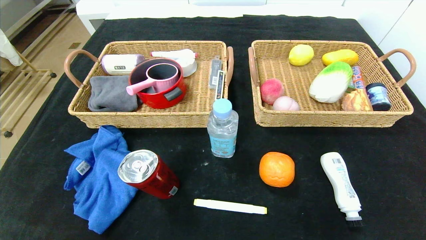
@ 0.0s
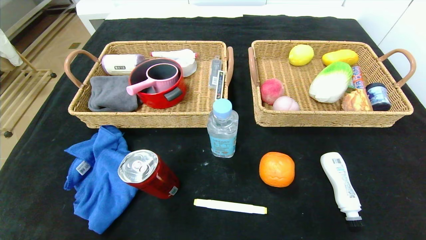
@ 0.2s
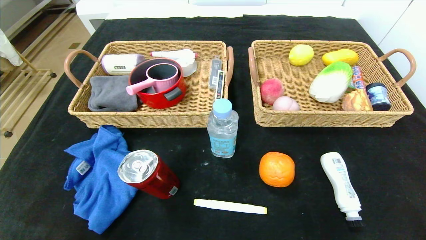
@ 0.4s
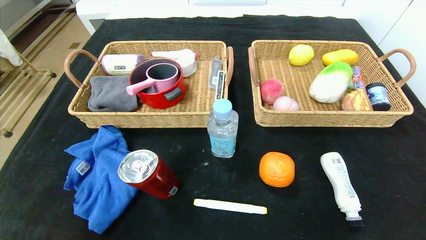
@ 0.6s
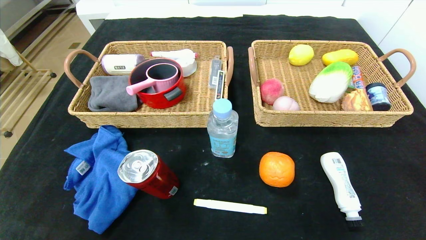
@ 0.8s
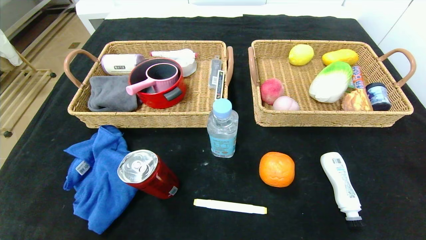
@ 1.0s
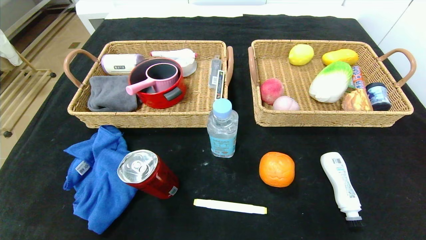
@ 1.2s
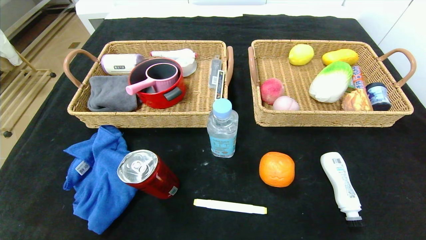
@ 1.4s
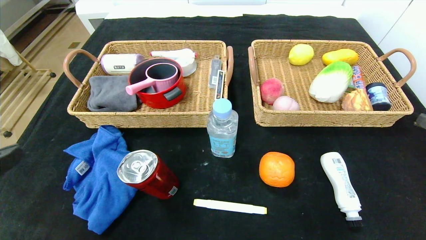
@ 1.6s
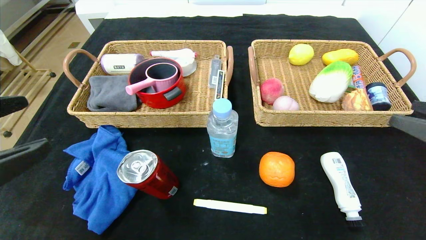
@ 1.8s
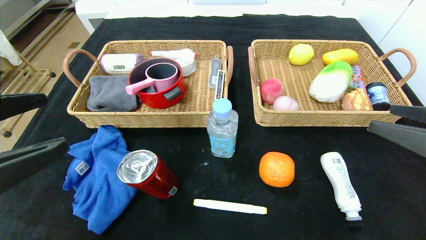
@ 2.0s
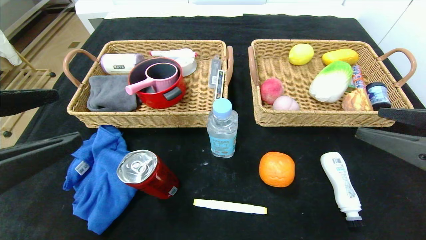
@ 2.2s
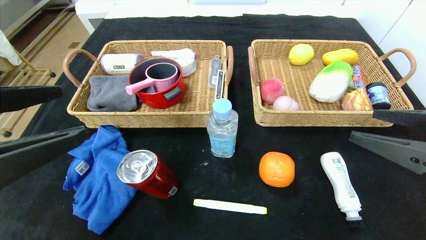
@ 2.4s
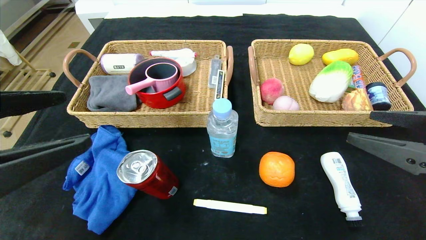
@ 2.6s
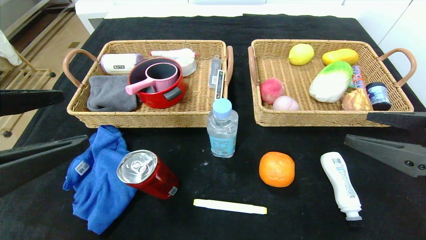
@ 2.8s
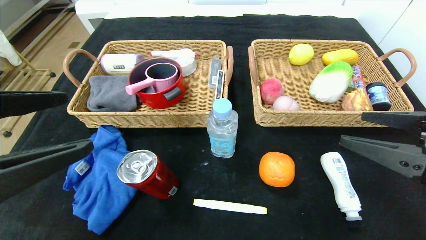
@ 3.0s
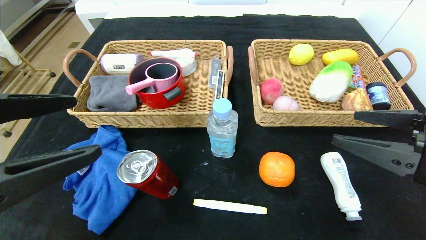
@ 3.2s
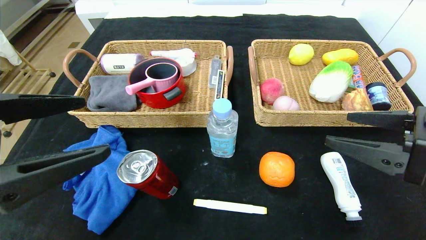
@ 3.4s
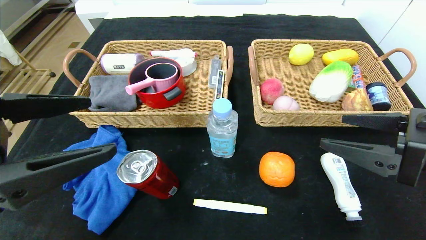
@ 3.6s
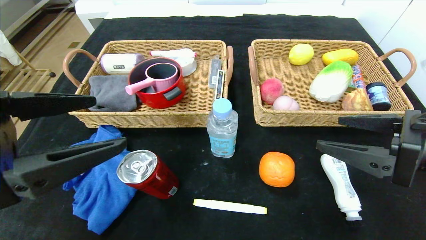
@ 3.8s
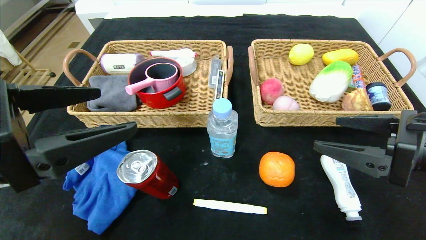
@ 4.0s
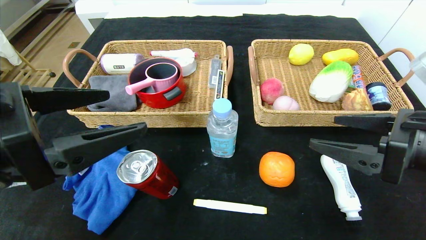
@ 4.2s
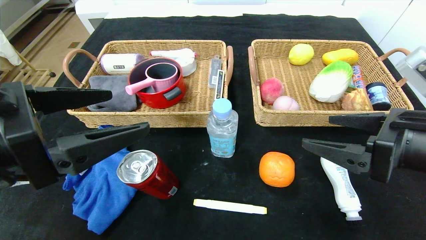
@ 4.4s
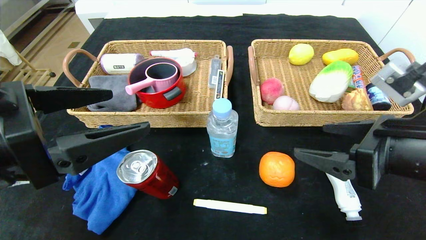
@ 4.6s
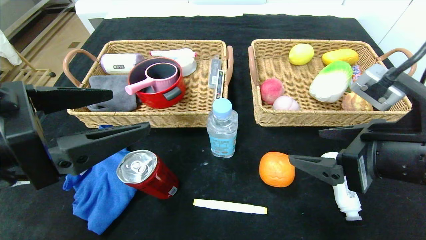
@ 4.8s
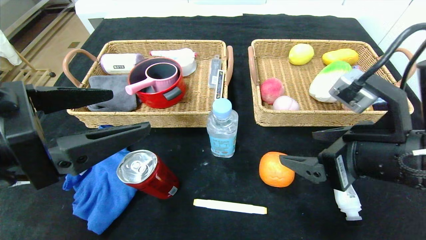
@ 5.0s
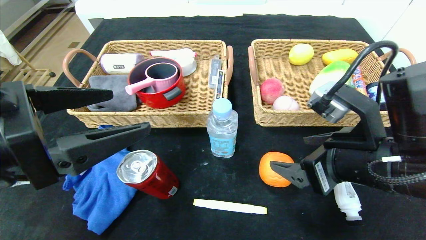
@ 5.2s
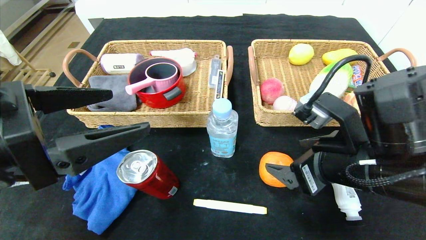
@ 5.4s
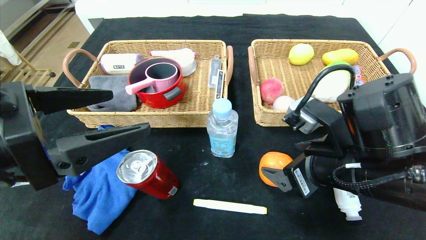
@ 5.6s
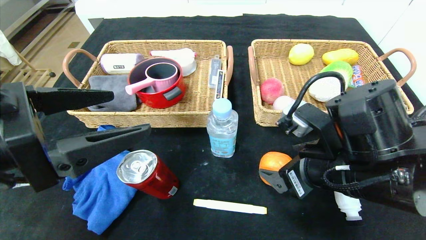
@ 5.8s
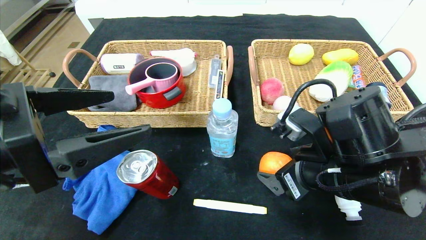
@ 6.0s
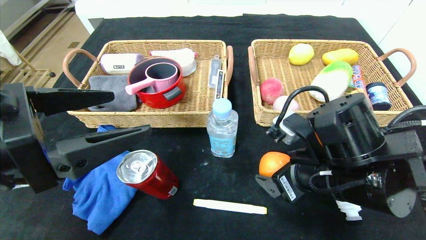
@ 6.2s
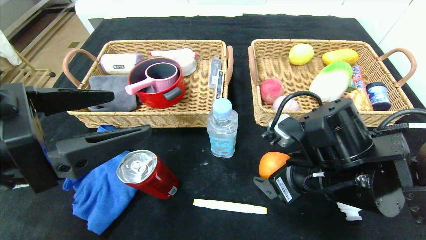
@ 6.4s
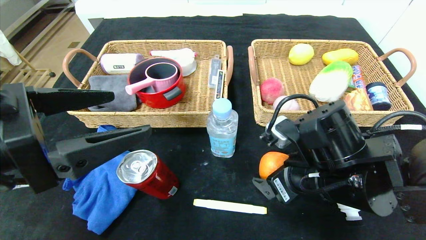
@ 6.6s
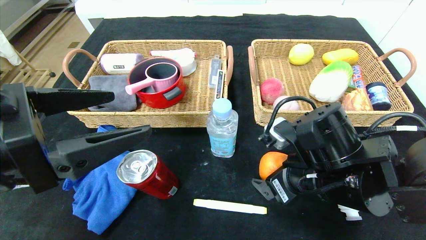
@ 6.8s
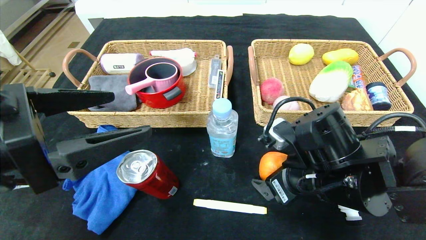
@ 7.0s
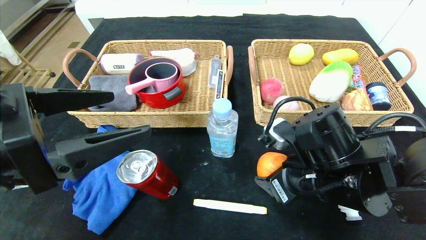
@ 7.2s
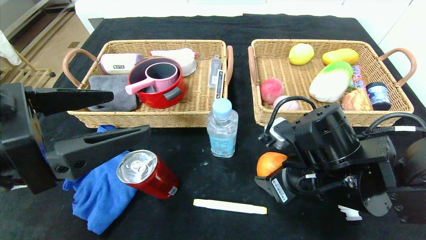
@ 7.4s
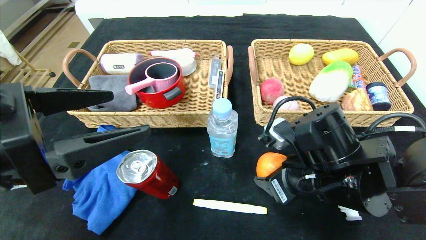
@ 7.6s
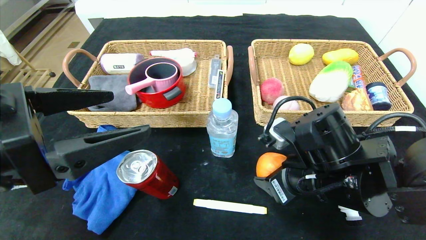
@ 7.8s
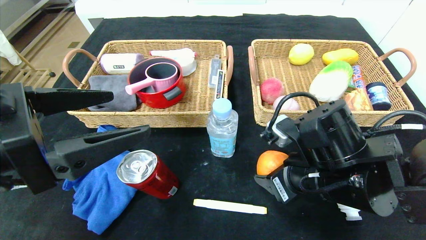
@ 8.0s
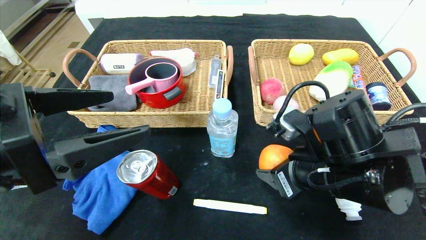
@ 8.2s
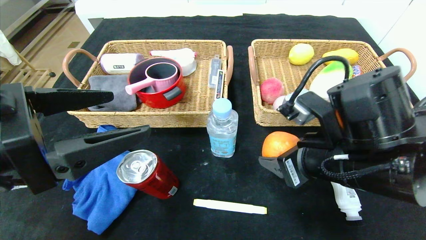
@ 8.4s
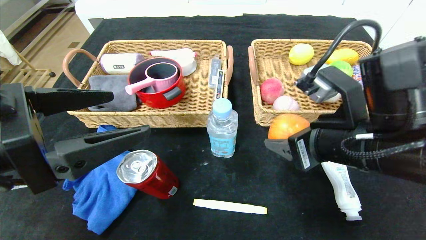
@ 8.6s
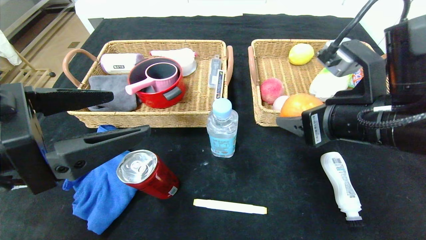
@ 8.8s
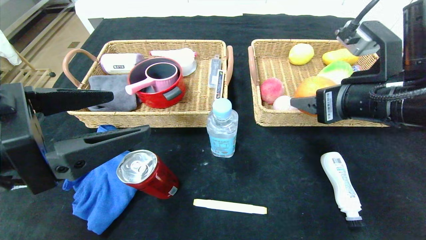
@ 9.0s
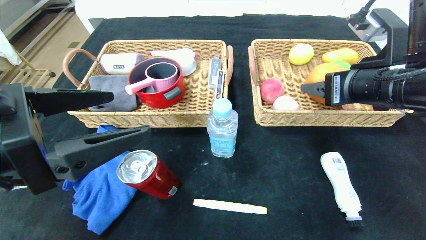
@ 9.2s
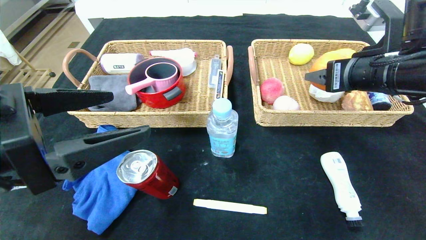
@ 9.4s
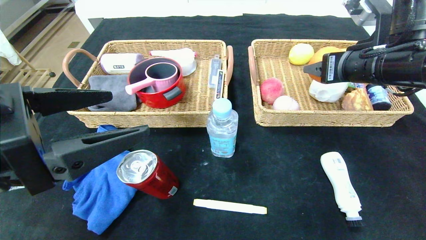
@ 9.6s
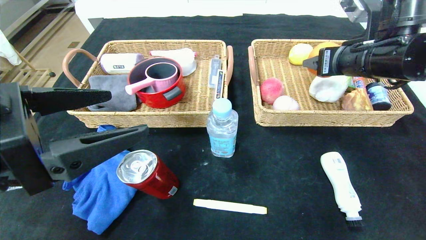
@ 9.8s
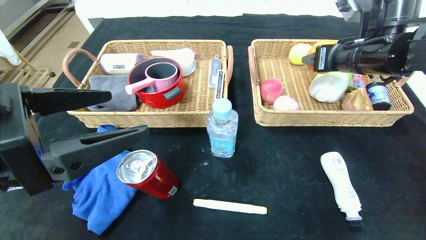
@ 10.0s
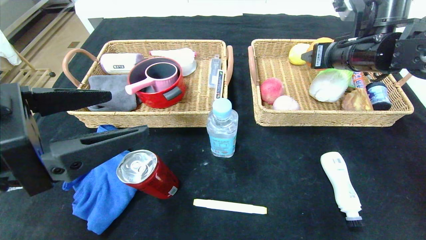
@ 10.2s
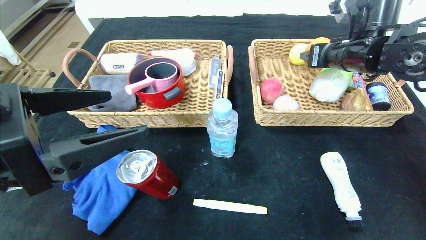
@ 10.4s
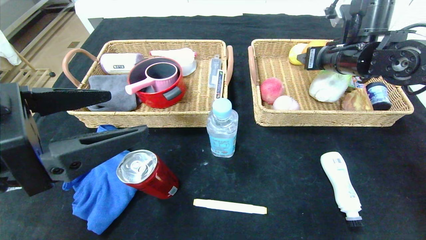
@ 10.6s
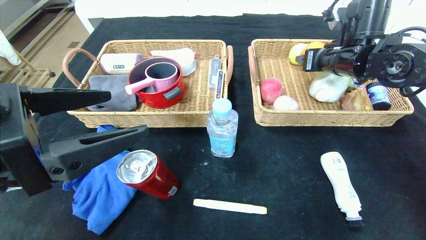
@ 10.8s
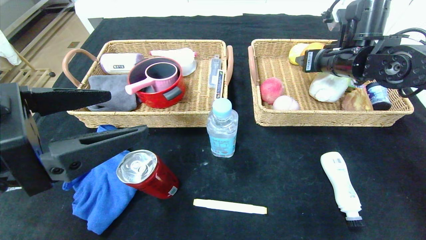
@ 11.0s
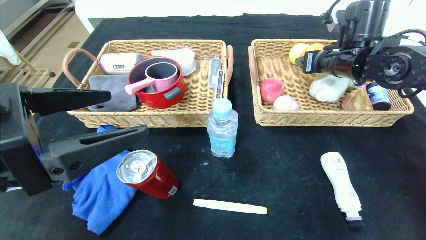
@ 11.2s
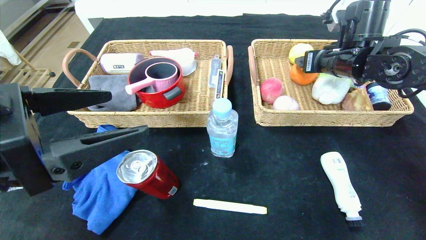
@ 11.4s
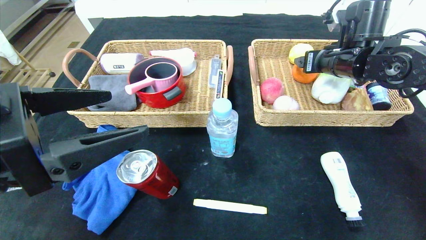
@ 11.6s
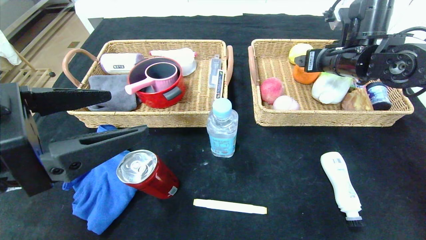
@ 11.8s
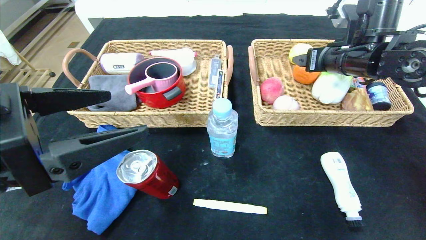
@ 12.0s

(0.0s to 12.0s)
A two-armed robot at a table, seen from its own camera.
Step, 0.0s - 11.6s: Grasp the orange and put it in the right basket.
0.0s - 1.6s: The left gripper travels forward and upward by approximately 10 cm. The right gripper moves forward, about 10 cm.
1.6s - 3.0s: The right gripper ends up roughly 5 cm from where it was.
3.0s - 4.4s: The grippers make only small movements.
4.4s - 6.0s: The right gripper heads to the left and downward, covering approximately 10 cm.
6.0s - 7.6s: The right gripper closes its fingers.
7.6s - 9.0s: The right gripper moves upward and to the right, roughly 15 cm.
9.0s - 10.4s: The right gripper heads forward, covering approximately 15 cm.
10.4s - 12.0s: The grippers stay close to where they were, moving slightly.

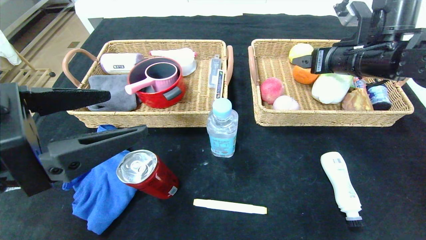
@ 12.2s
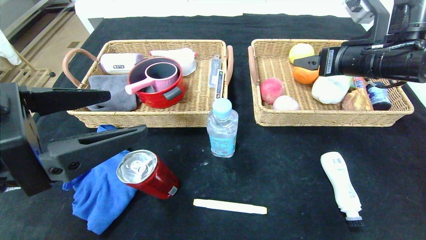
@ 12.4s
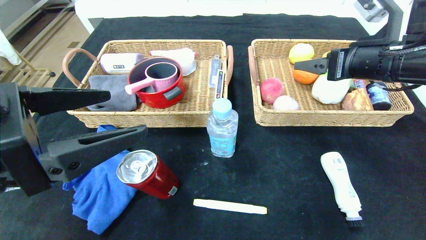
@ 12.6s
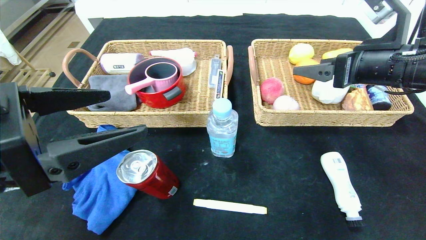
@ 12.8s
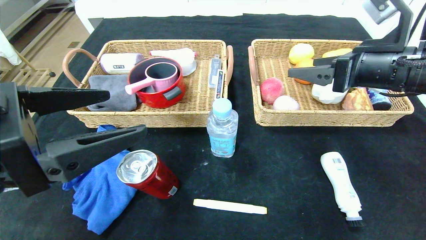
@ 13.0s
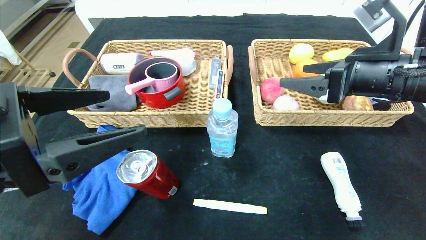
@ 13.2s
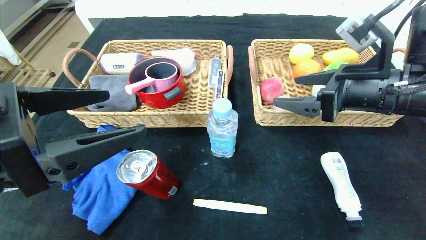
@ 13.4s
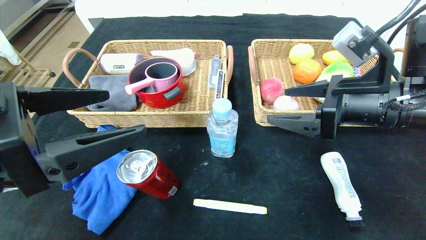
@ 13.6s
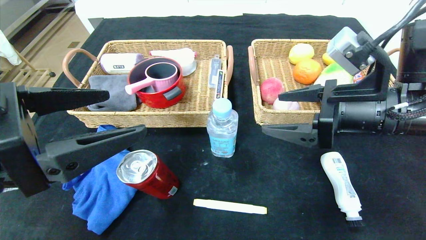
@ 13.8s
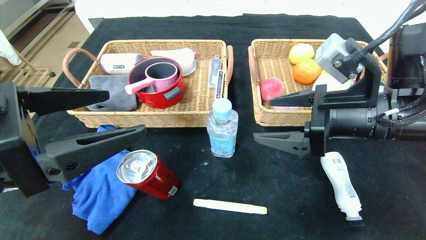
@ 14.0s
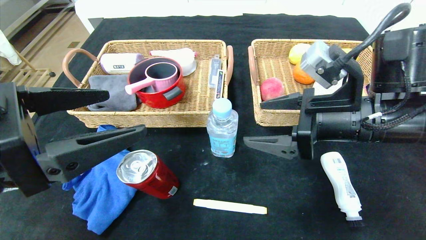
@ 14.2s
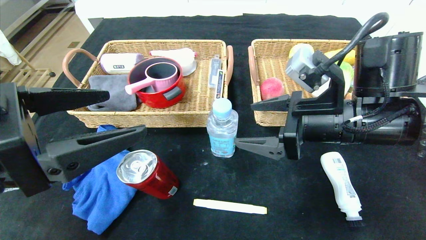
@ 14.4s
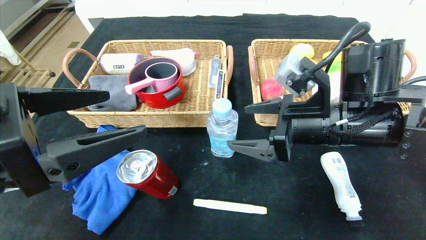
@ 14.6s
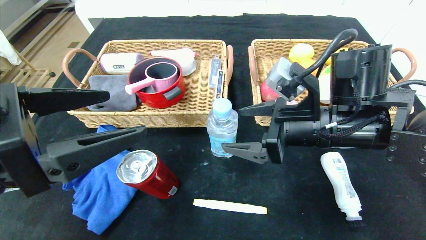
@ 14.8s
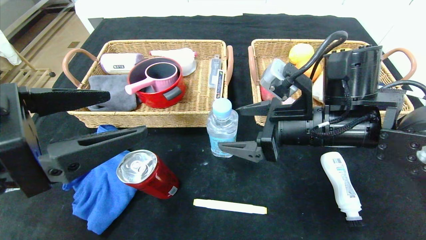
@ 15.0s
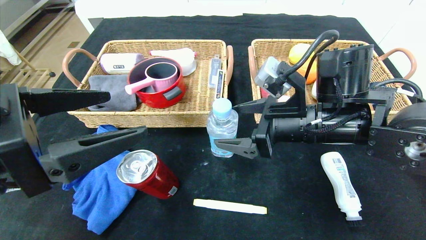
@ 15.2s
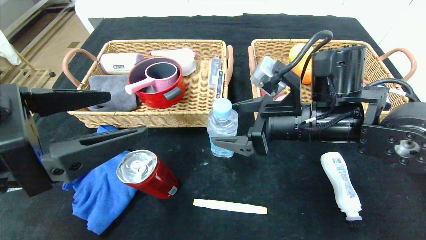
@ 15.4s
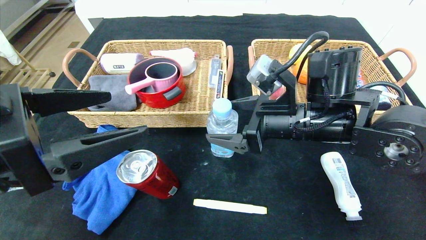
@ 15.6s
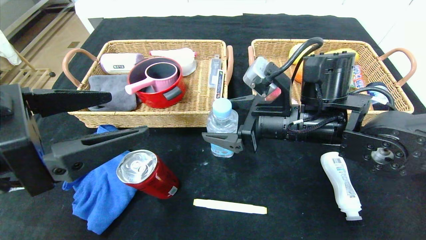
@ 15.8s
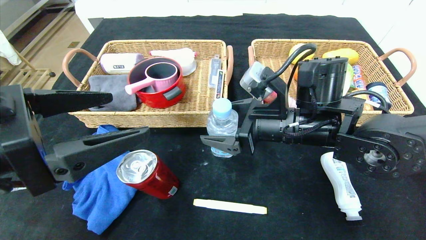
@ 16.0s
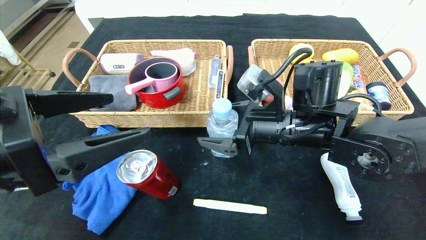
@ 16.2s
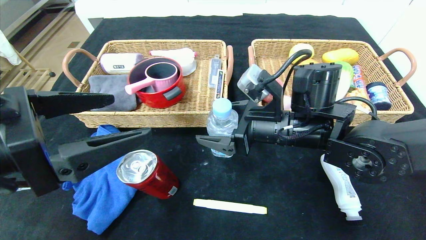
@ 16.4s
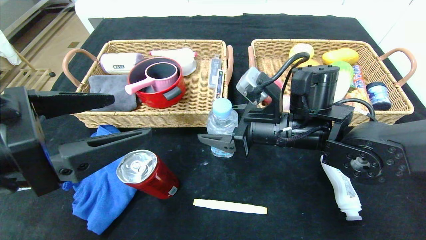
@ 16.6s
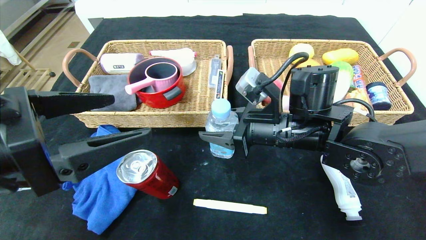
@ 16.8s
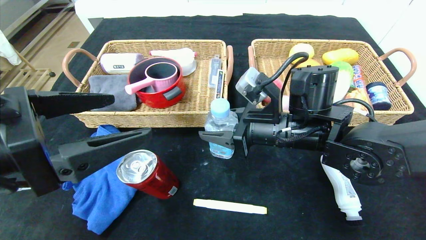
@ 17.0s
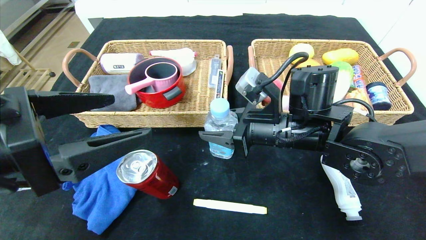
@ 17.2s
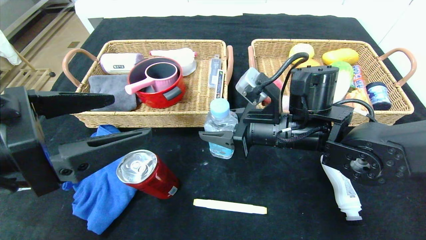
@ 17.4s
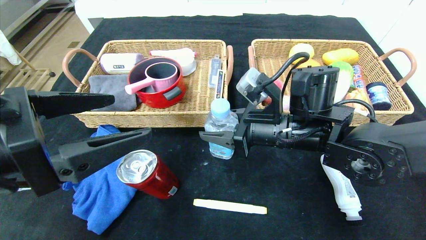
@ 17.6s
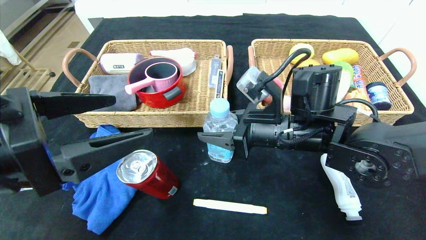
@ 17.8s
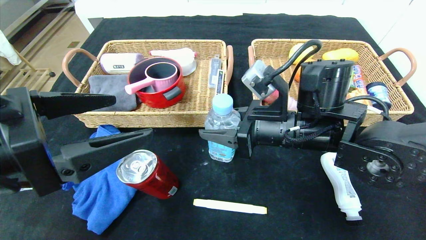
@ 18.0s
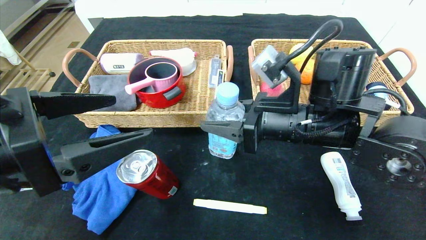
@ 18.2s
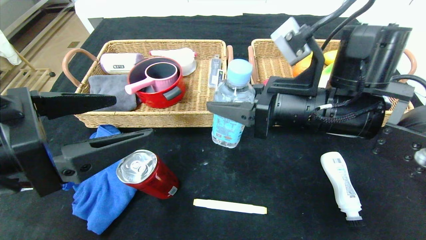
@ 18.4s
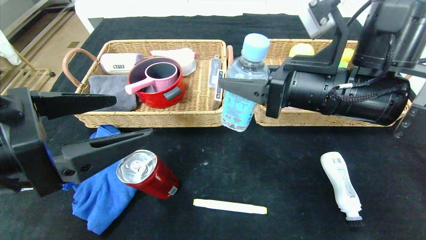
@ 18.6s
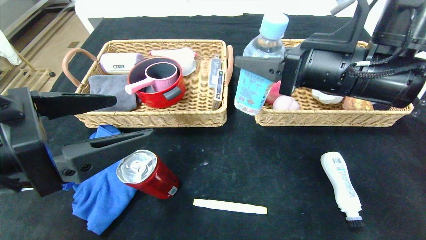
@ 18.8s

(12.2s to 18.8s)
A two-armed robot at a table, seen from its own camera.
12.2s - 13.8s: The right gripper travels backward by some 10 cm.
13.8s - 15.4s: The right gripper travels to the left by some 10 cm.
15.4s - 17.2s: The right gripper closes.
17.2s - 18.8s: The right gripper heads upward and to the right, covering about 10 cm.
